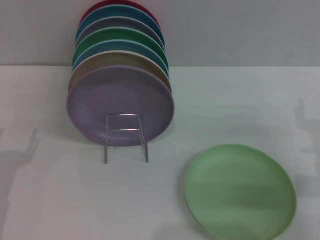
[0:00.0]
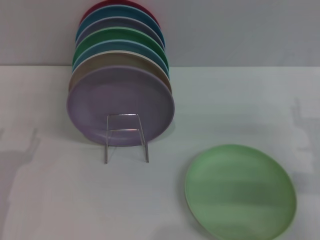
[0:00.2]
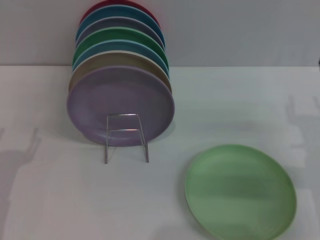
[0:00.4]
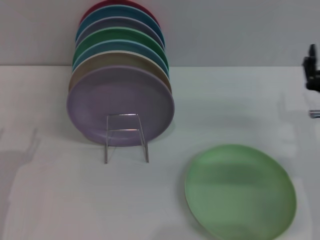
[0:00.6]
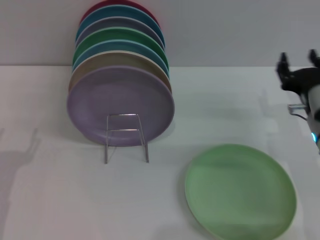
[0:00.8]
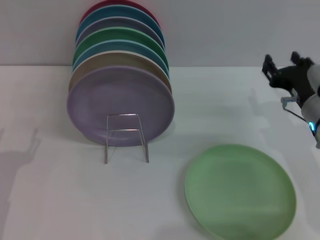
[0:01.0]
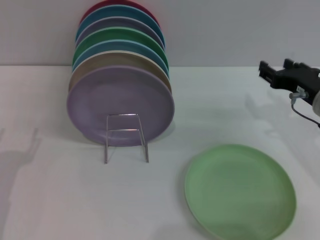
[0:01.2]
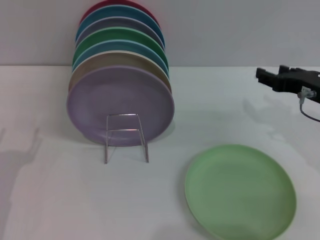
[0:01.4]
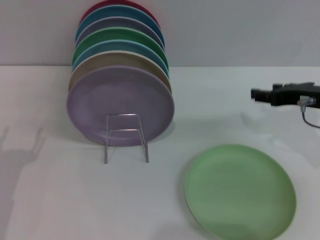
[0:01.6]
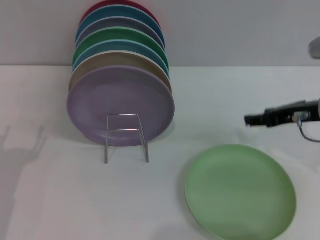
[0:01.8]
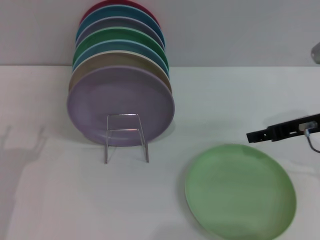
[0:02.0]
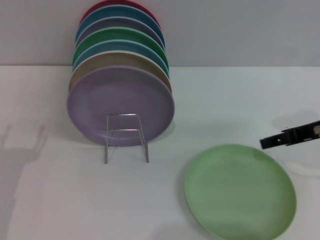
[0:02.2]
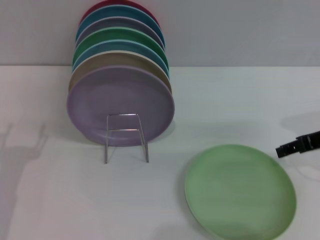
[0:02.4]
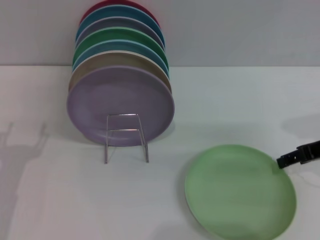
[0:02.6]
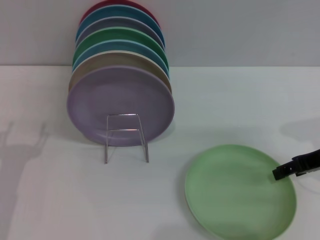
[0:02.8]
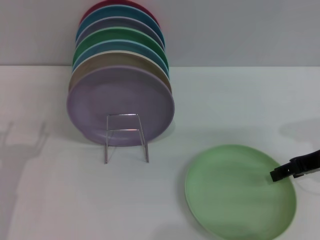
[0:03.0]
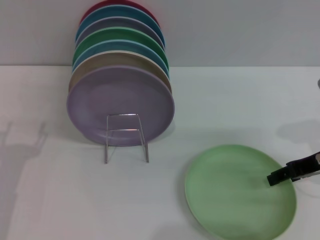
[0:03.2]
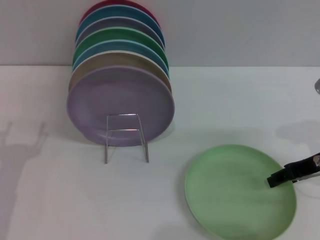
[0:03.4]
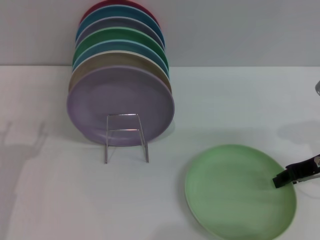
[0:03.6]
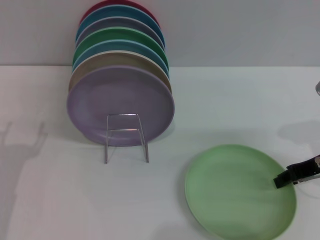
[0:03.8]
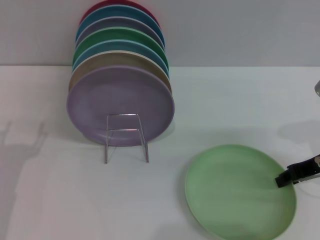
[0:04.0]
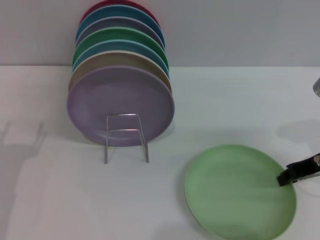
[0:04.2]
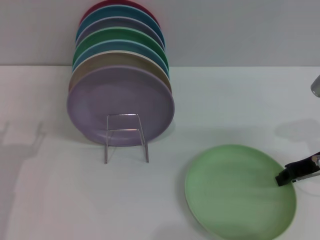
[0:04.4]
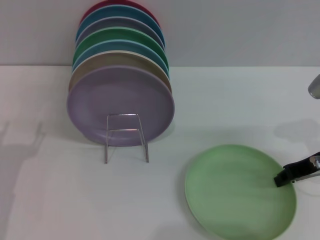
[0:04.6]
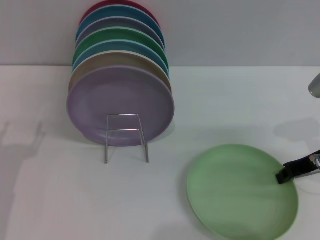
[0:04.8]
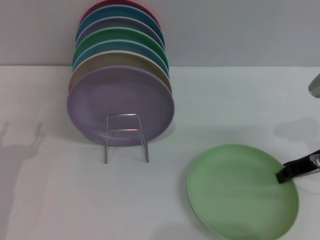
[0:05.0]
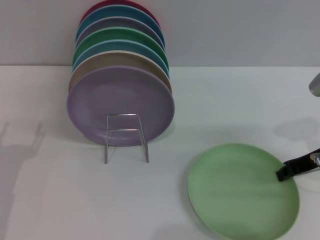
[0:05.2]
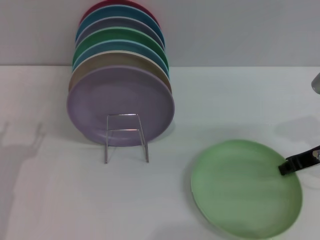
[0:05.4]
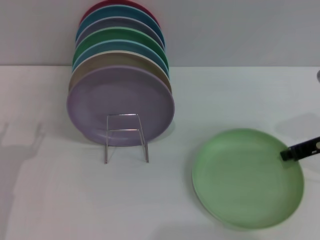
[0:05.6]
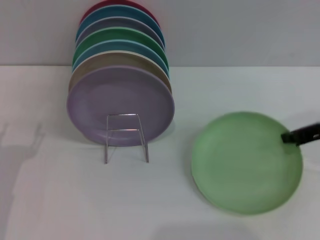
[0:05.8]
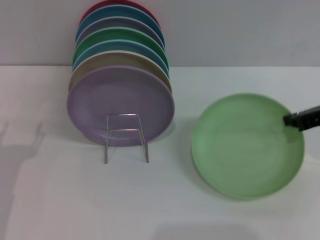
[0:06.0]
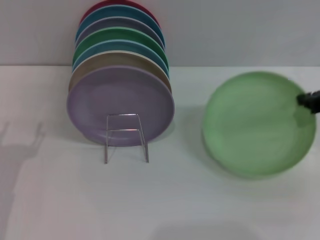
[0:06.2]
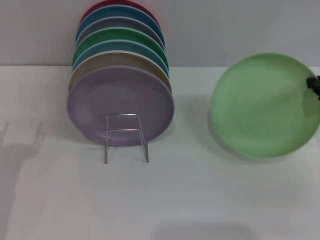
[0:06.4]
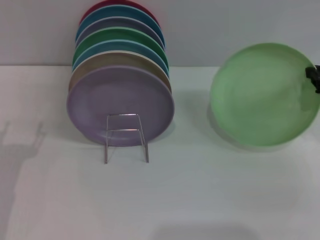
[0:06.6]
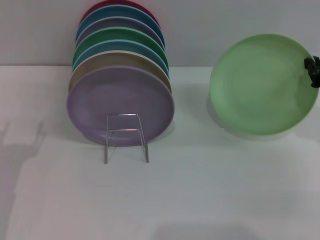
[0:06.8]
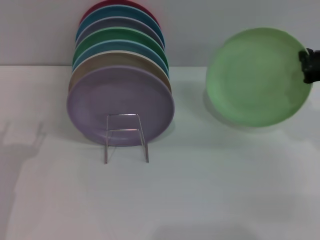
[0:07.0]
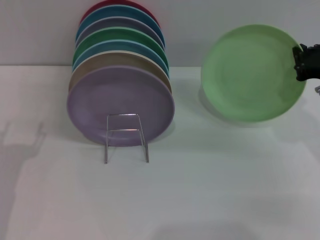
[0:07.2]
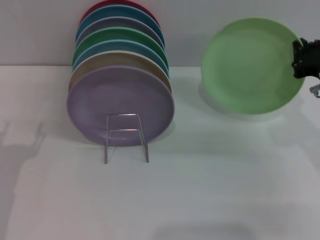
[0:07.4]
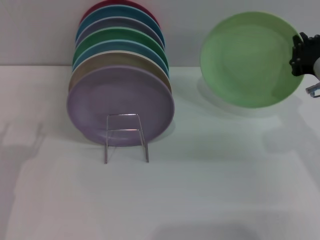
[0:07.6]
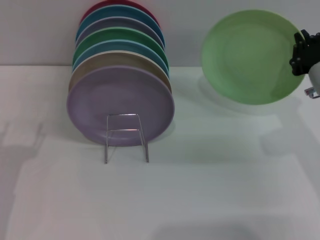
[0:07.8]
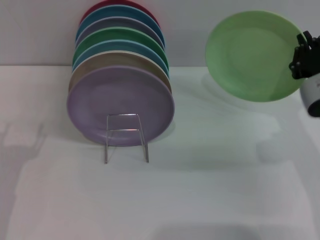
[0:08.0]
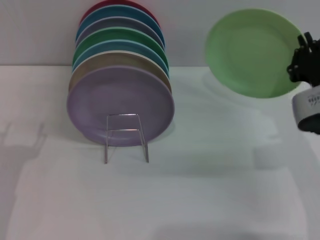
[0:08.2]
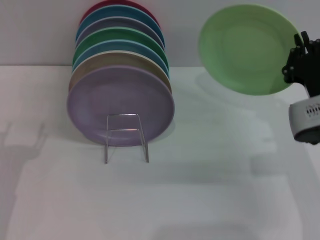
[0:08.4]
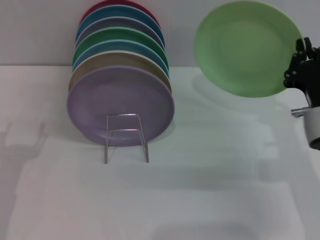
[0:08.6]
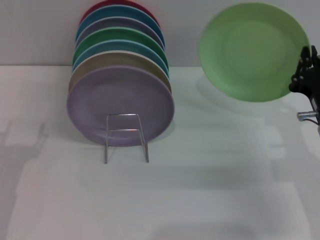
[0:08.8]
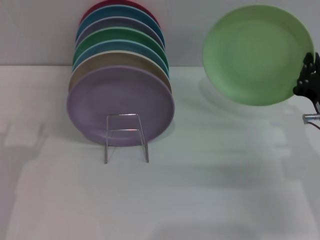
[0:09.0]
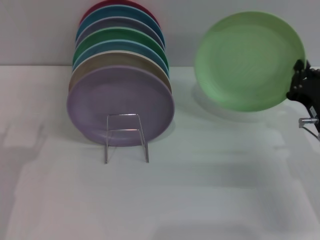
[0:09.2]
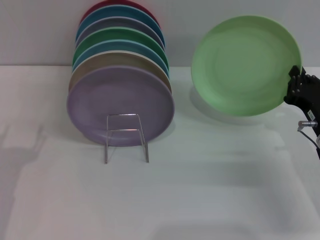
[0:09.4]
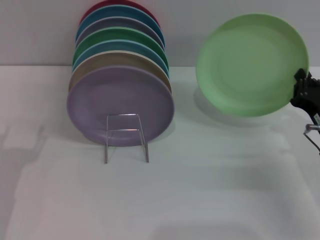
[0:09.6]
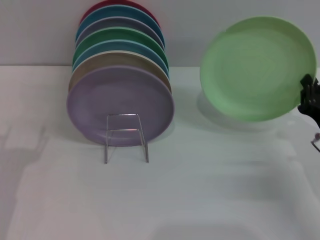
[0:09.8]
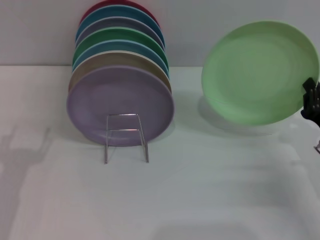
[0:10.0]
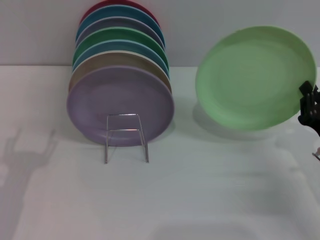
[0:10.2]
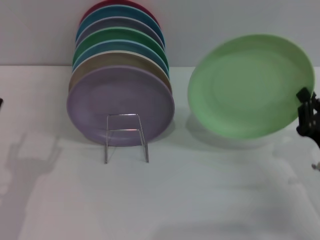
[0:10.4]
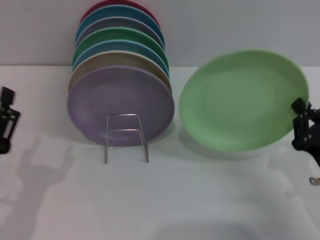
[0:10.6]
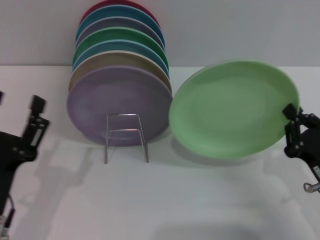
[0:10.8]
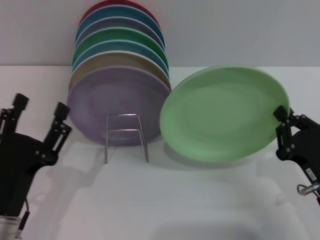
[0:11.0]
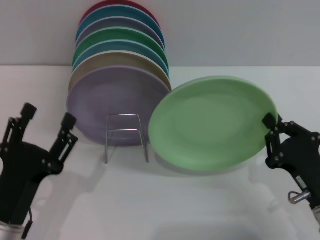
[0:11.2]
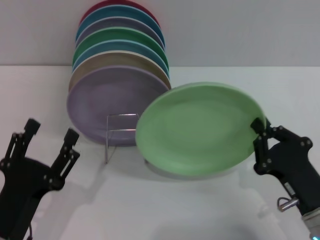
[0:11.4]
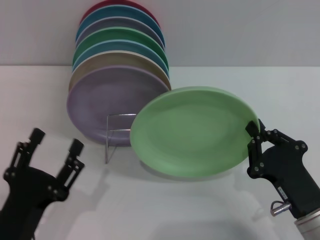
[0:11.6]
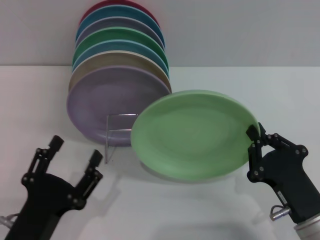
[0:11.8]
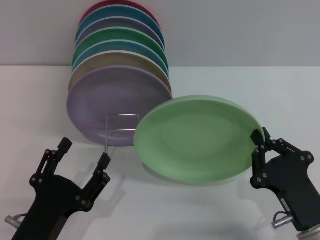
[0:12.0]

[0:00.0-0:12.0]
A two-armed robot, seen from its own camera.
Task of the whole recording: Grip the plate with one hand, pass it to the other, then set it on the shelf.
Step, 0:00.0 to 0:07.8: Pick up the plate with the right gripper.
0:00.0 to 0:01.6: The right gripper shifts approximately 10 cm upward and forward.
0:03.0 to 0:04.4: The right gripper closes up.
0:07.6 to 0:09.0: The right gripper is displaced downward by some 10 cm.
0:09.0 to 0:10.4: The right gripper travels backward by roughly 5 cm.
0:10.4 to 0:12.0: The right gripper travels to the left and backward by some 10 cm. Meanwhile the left gripper shifts some 10 cm to the right and backward.

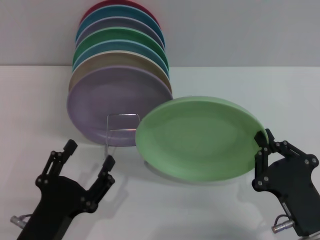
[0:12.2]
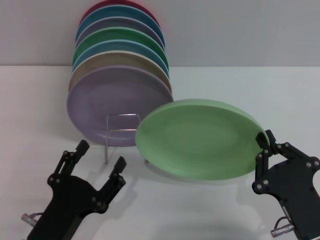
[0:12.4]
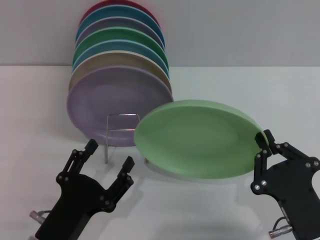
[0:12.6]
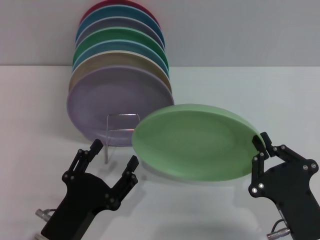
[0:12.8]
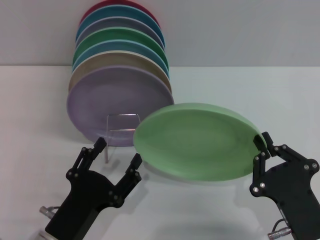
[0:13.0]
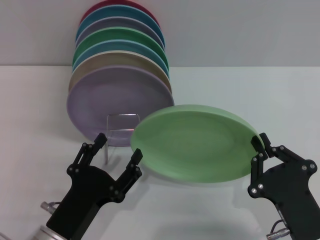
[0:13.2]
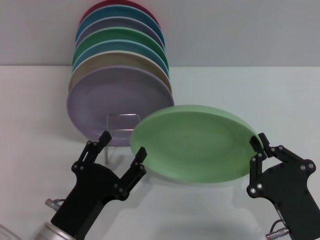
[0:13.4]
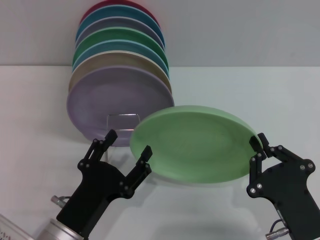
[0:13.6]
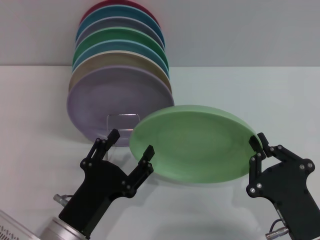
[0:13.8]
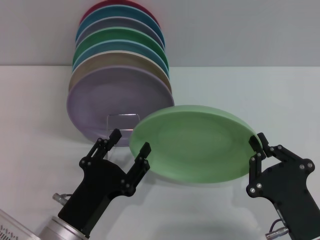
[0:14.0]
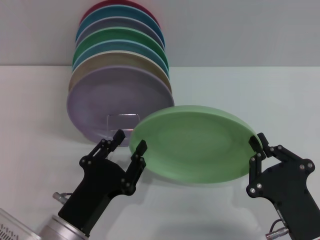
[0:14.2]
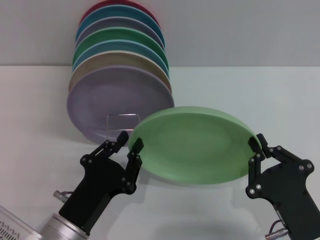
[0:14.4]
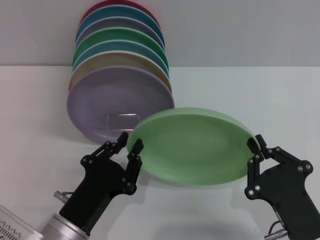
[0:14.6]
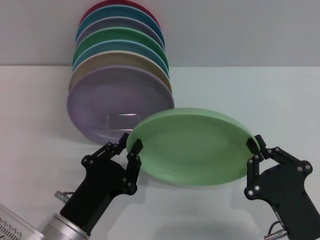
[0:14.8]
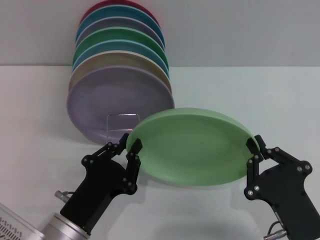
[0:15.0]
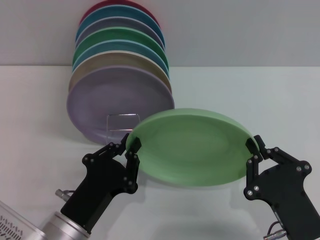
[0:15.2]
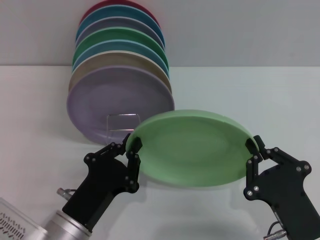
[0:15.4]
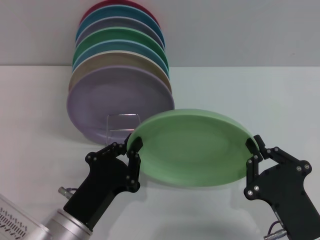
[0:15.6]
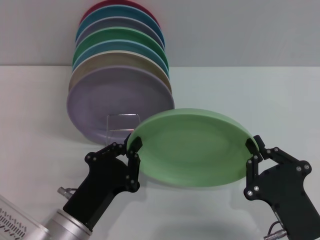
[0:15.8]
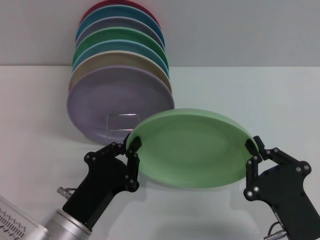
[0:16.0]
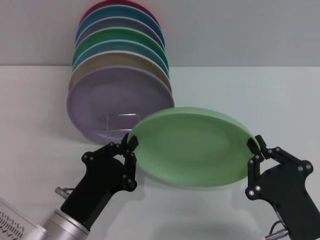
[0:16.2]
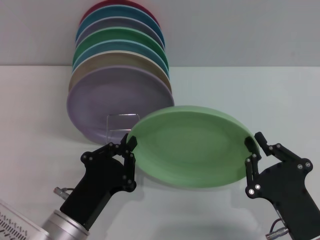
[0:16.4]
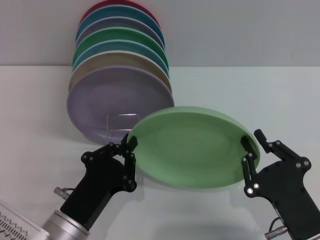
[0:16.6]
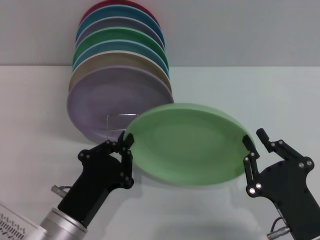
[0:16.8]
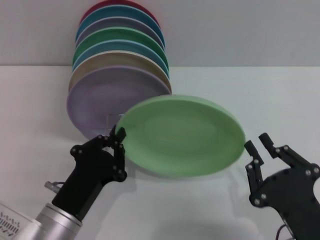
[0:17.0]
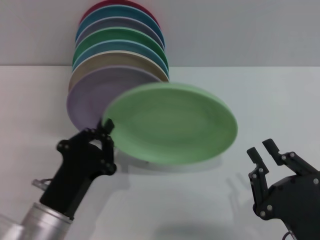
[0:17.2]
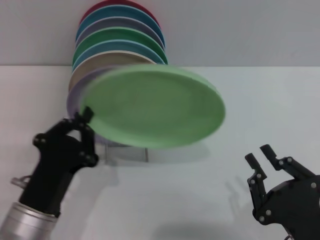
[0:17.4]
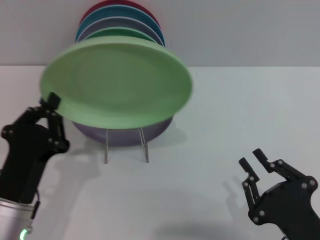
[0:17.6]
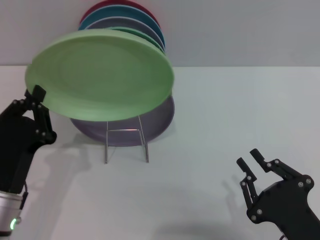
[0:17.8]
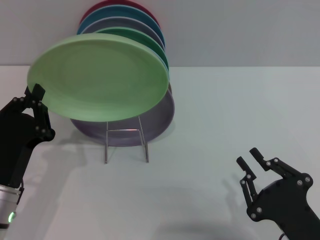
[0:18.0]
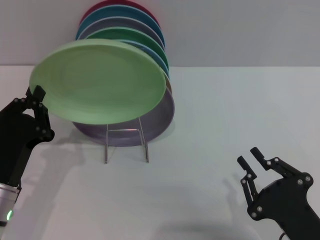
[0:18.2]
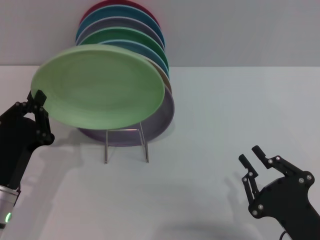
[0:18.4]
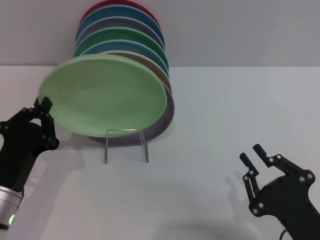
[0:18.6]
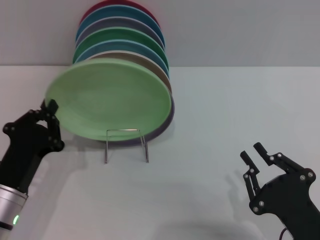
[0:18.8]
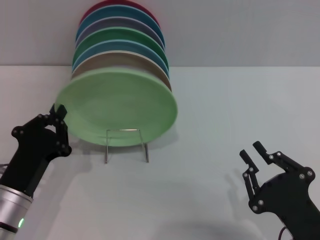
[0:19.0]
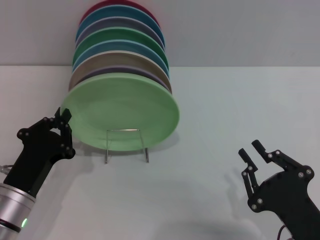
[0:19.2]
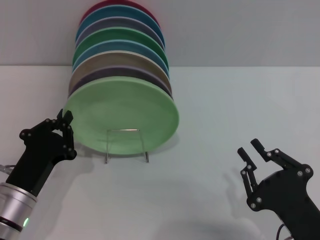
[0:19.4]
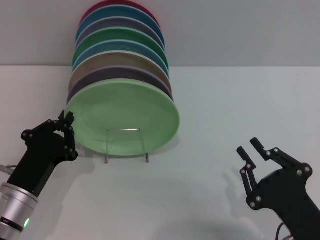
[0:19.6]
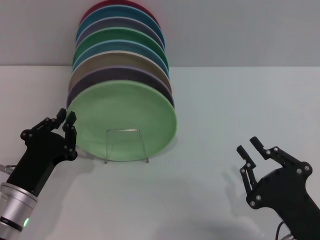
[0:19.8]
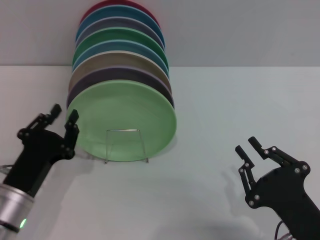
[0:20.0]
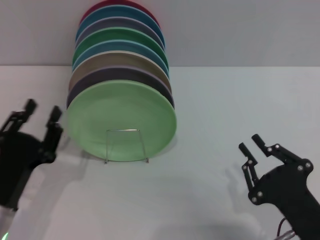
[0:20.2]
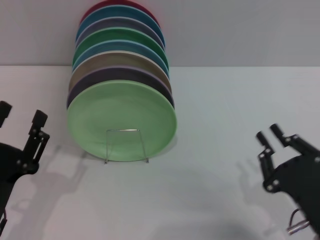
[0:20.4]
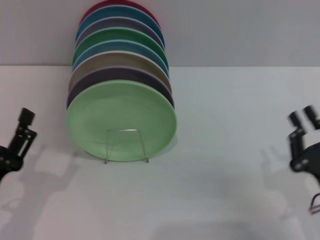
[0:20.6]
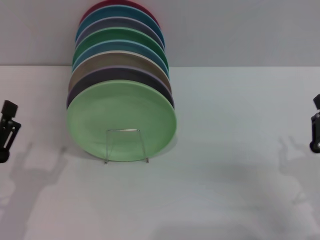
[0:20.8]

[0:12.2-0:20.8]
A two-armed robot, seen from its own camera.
Task of the whole recording: Grip the plate with one hand, pass it to the other, then set it on the shelf.
Step, 0:12.2 to 0:17.2: Pass the plate from the right gripper to the left gripper.
Step, 0:17.4 to 0:20.0: Place the plate on the shelf with the left gripper.
0:12.2 to 0:13.6: The grippers make only small movements.
0:13.6 to 0:15.0: The left gripper closes.
0:15.0 to 0:16.6: Neither gripper changes place.
0:16.6 to 0:18.0: The left gripper moves to the left, approximately 5 cm.
0:19.4 to 0:20.8: The right gripper heads to the right, covering roughly 5 cm; the left gripper is displaced backward by approximately 5 cm, and opens its fingers.

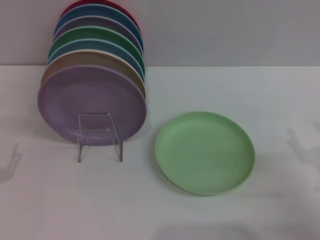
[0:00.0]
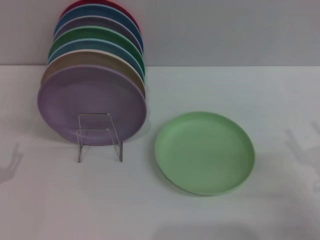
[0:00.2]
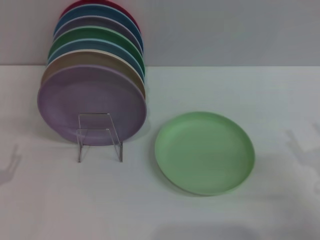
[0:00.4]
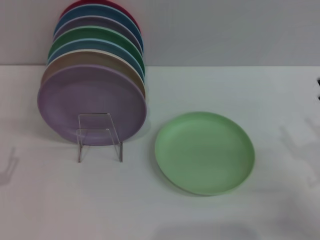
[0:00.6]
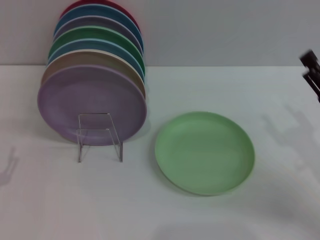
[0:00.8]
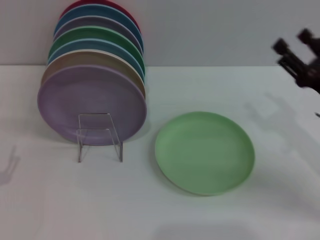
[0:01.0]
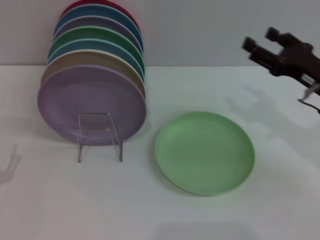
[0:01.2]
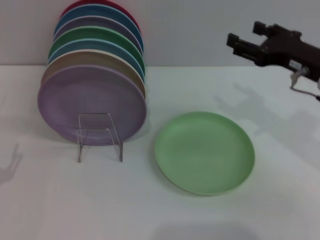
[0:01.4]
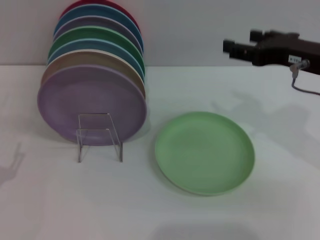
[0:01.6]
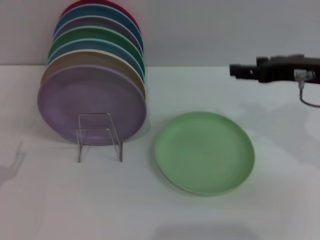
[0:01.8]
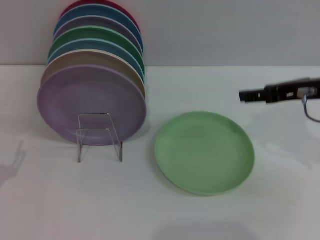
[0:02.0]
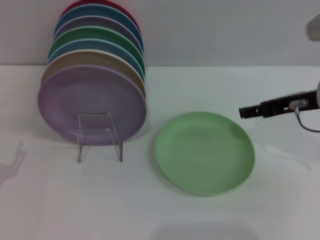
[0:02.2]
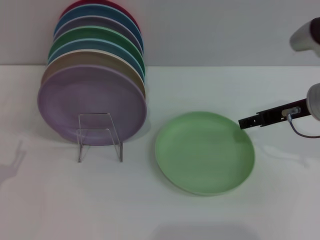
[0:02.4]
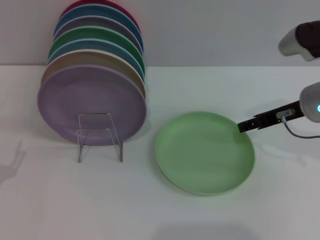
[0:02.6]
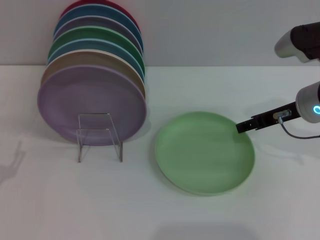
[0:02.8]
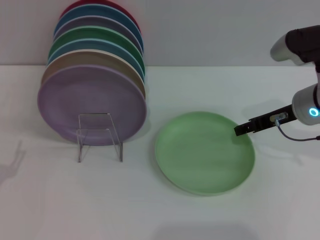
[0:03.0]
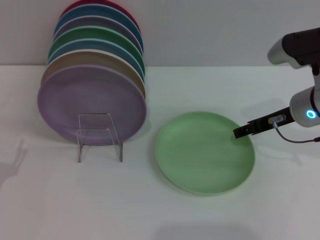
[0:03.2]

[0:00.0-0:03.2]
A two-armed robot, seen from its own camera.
Task of the whole recording: Grip the plate with one hand, pass it to the other, then set it on the shelf.
0:00.0 to 0:01.6: The right gripper is displaced upward, forward and to the left by roughly 20 cm.
0:01.6 to 0:03.2: The right gripper heads downward, covering some 10 cm.
